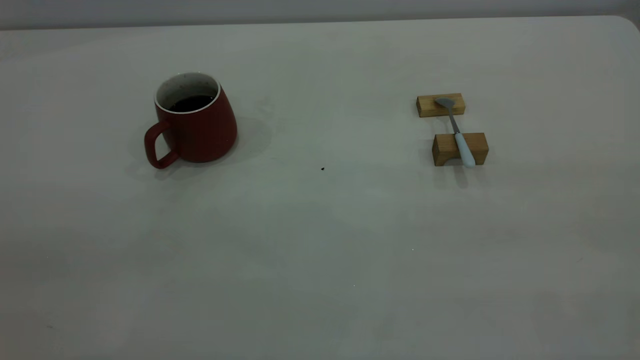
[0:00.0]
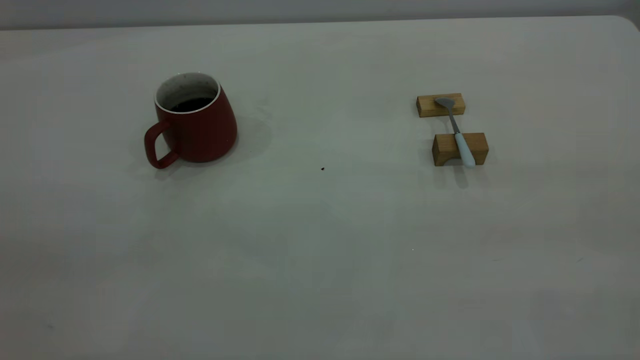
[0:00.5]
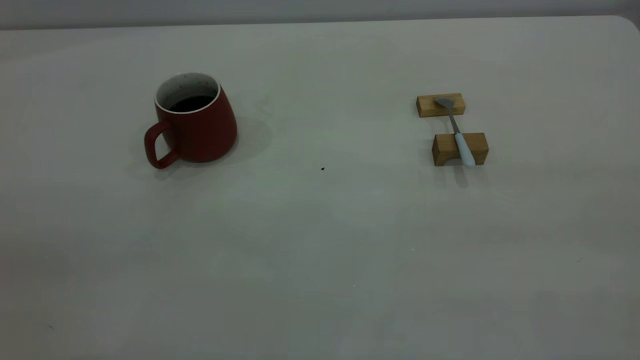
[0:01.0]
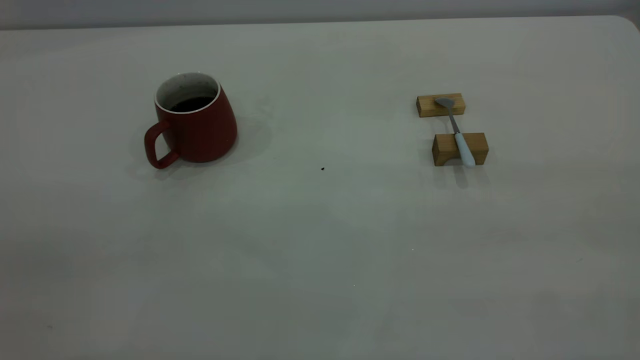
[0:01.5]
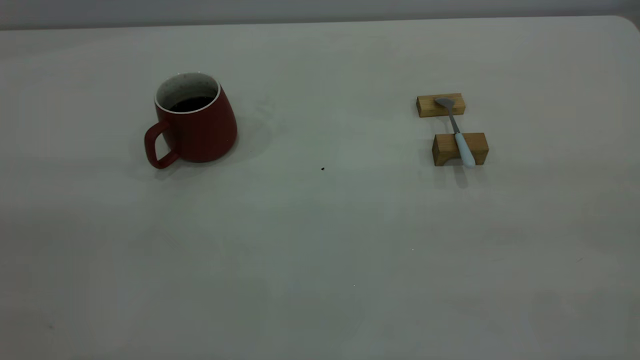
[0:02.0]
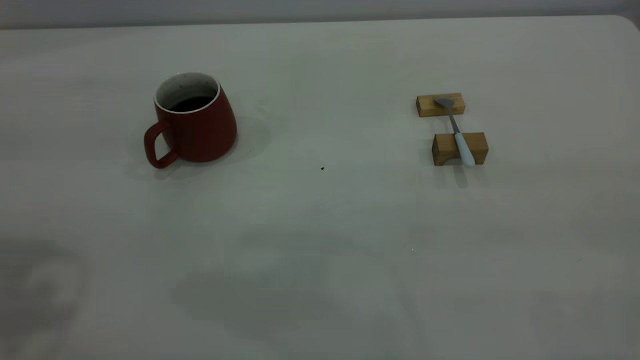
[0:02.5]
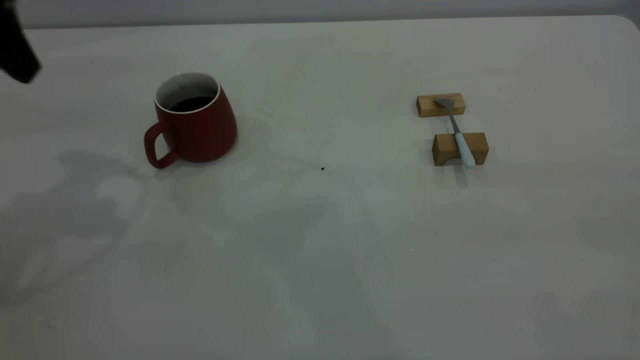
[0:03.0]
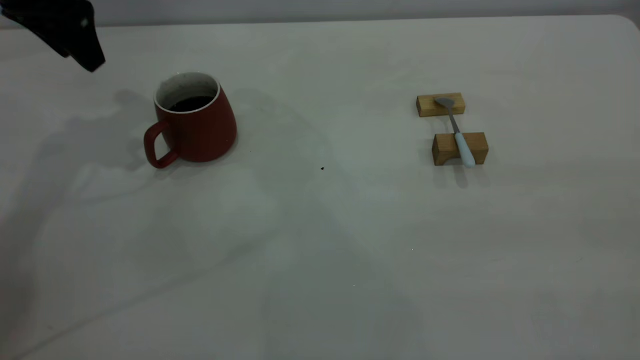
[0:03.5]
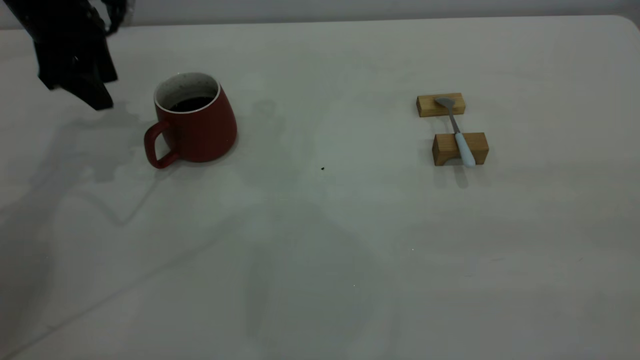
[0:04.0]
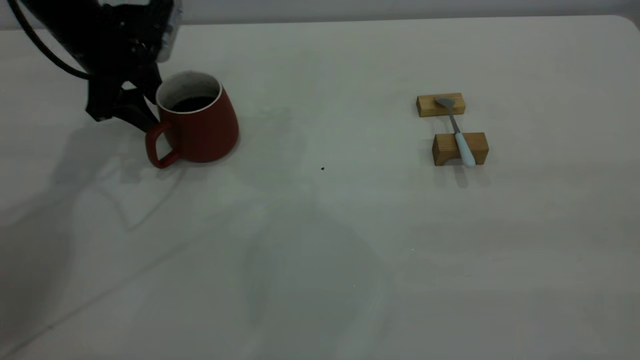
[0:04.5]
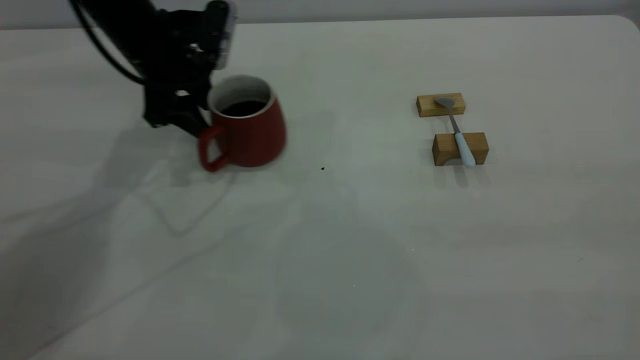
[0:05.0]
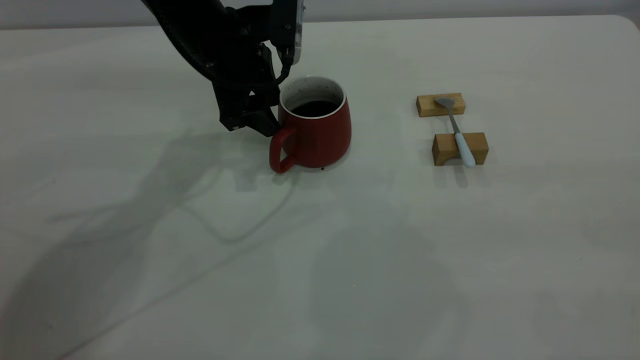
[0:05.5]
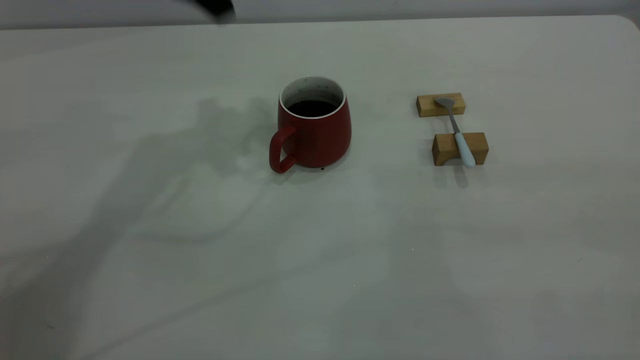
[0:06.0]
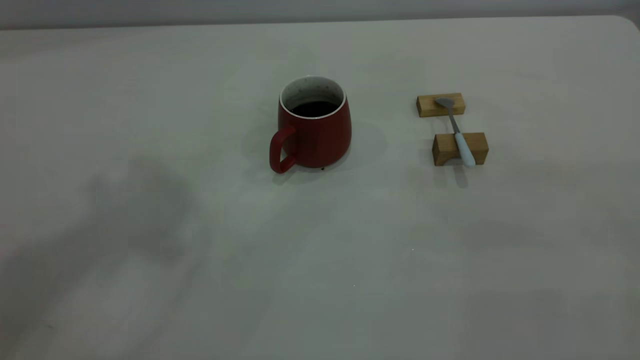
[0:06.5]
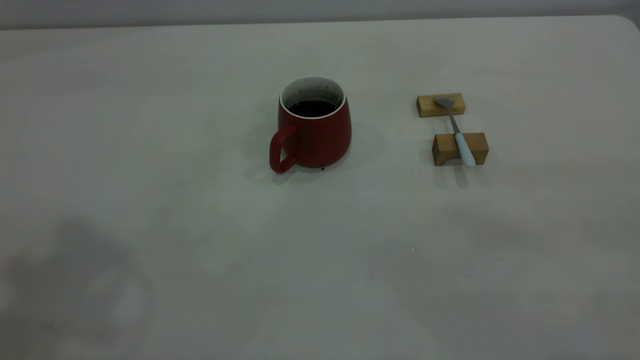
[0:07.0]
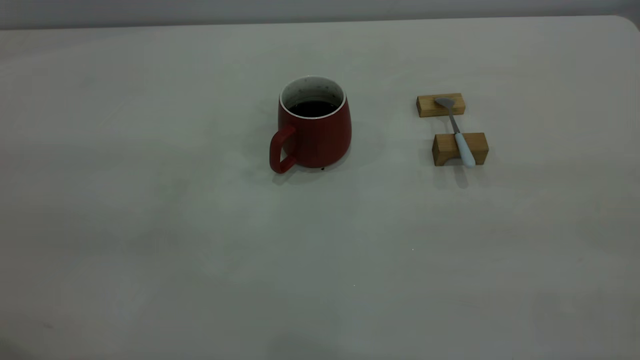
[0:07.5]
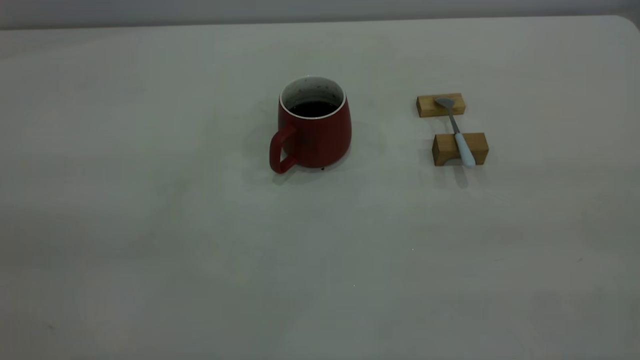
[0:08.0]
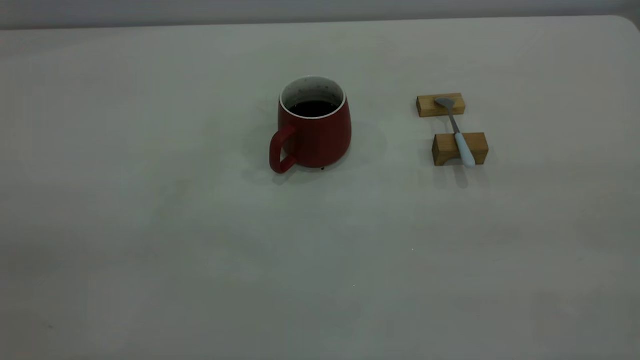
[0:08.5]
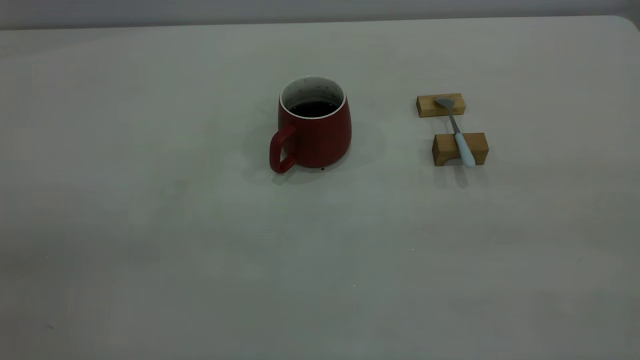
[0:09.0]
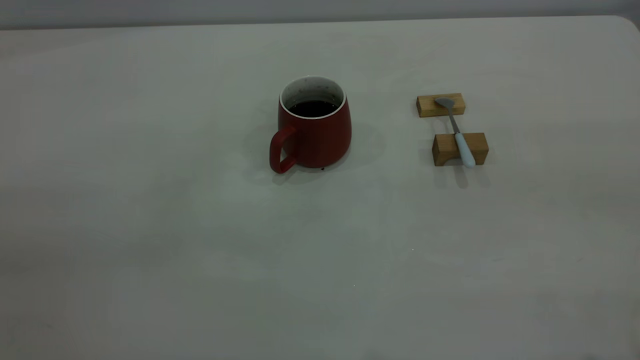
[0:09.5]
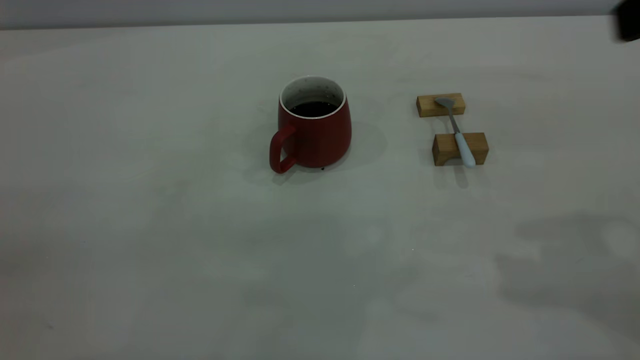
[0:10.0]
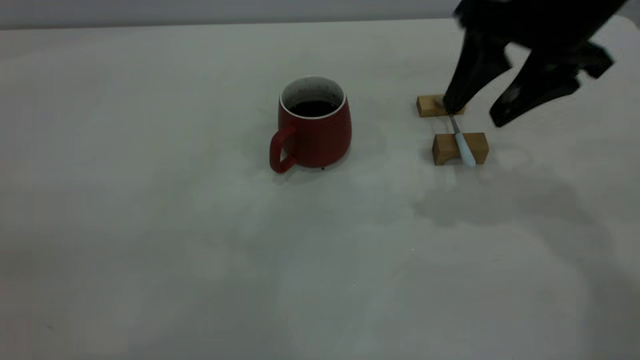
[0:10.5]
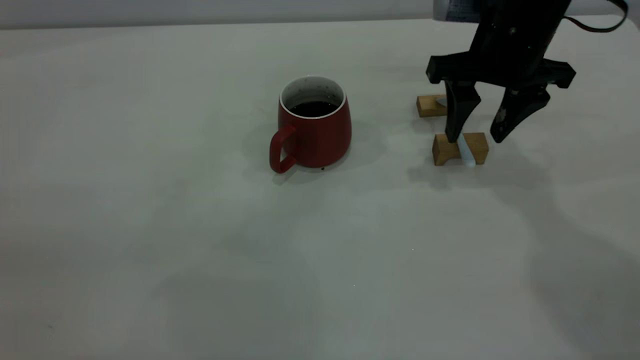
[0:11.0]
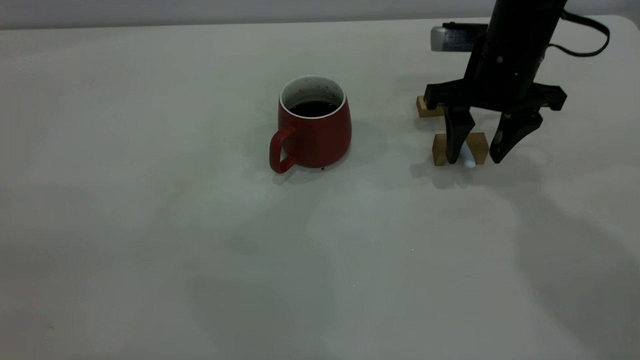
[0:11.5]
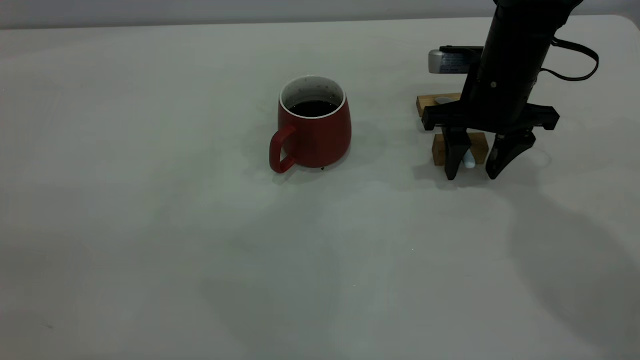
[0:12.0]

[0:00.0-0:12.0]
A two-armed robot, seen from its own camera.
Step, 0:00.0 to 0:05.5: Move the cup with coffee to the center of view.
0:02.0 to 0:04.0: The left gripper is displaced forward and downward by roughly 50 cm.
0:04.0 to 0:06.0: The left gripper goes some 20 cm upward and to the right.
0:10.0 to 0:12.0: The right gripper is displaced downward and forward by about 30 cm.

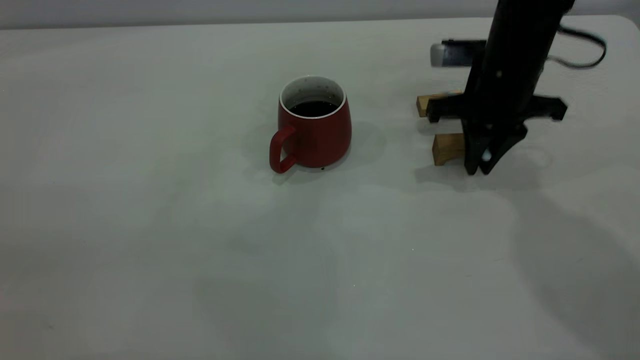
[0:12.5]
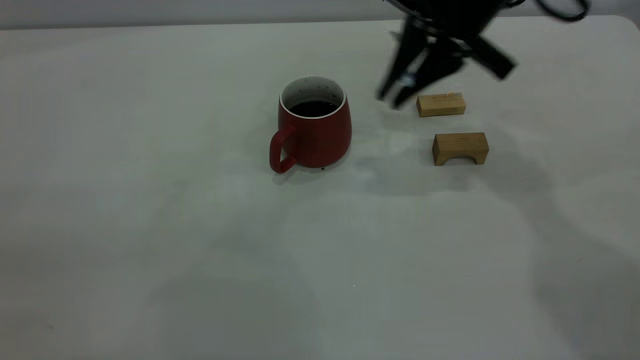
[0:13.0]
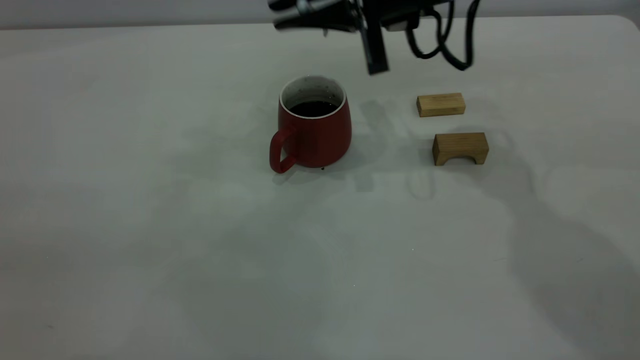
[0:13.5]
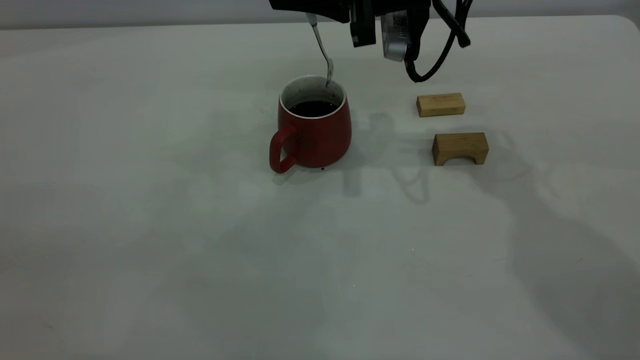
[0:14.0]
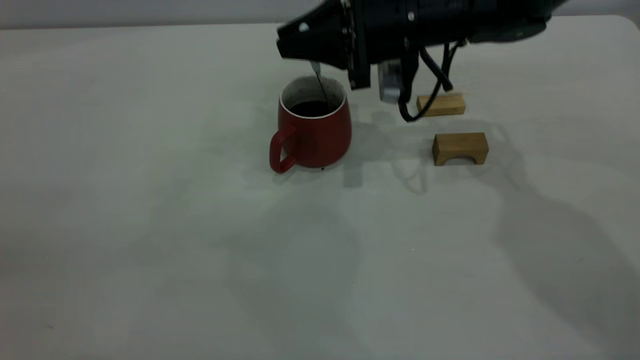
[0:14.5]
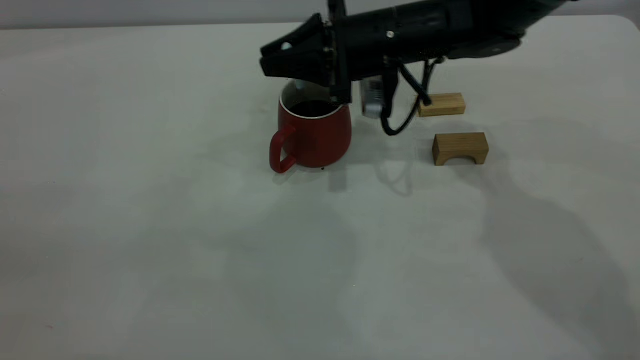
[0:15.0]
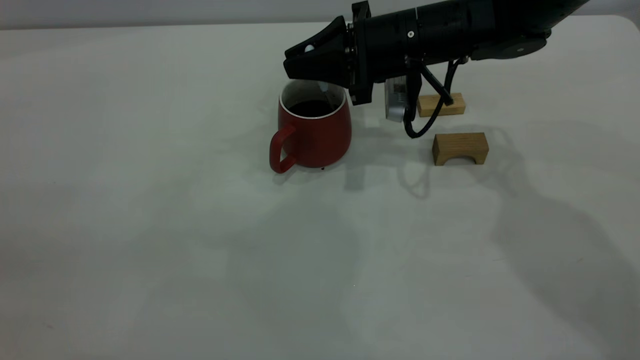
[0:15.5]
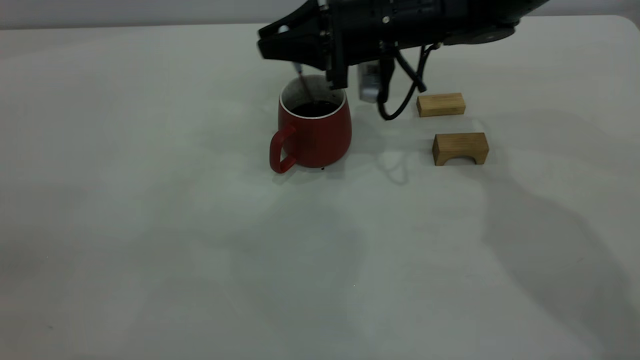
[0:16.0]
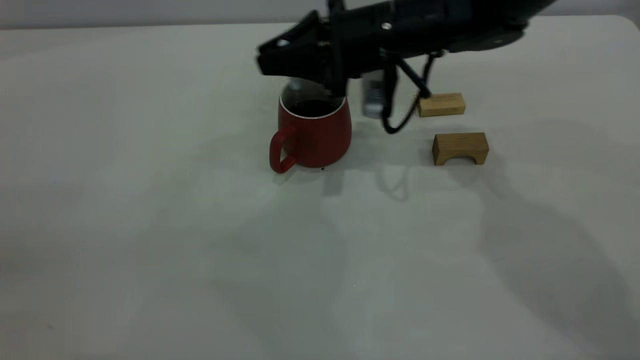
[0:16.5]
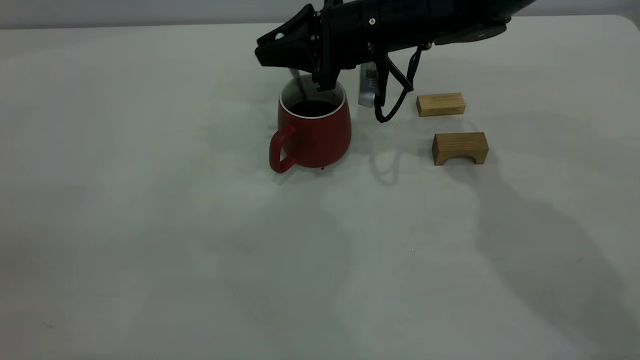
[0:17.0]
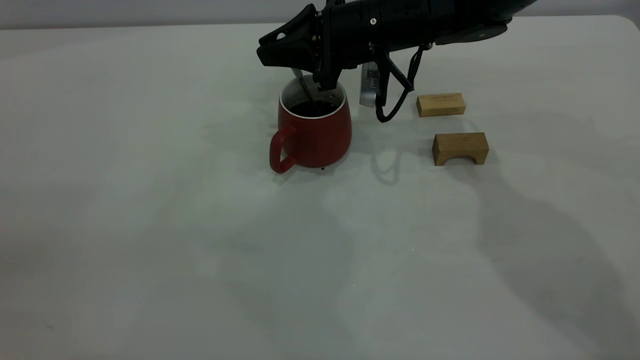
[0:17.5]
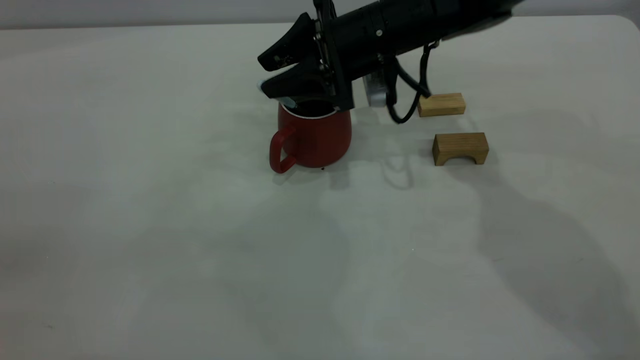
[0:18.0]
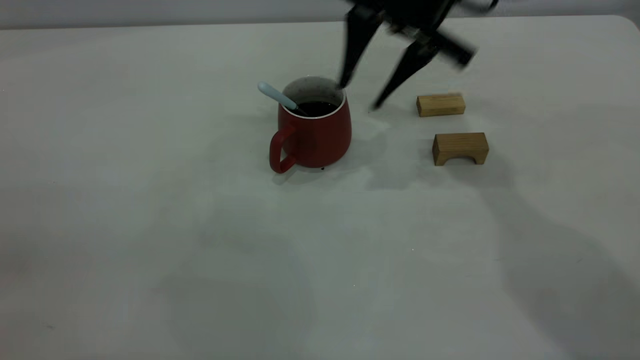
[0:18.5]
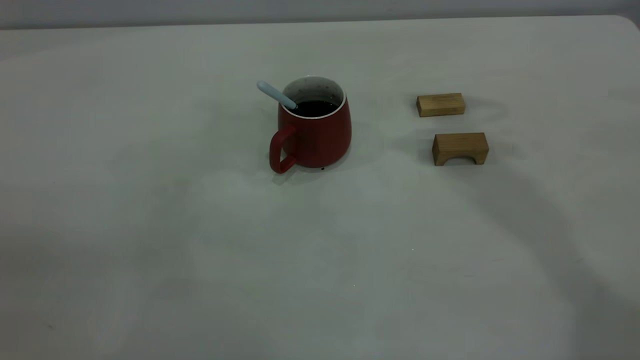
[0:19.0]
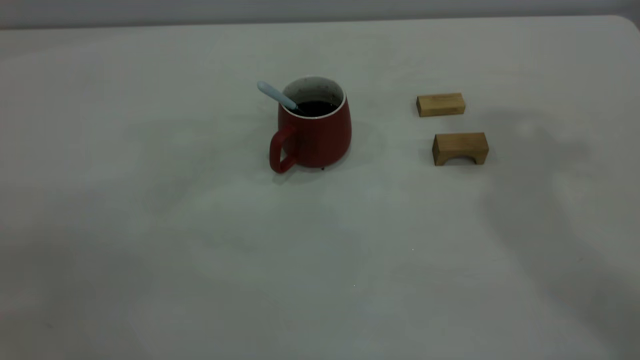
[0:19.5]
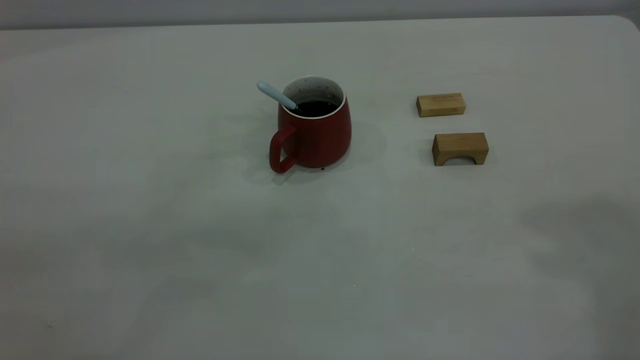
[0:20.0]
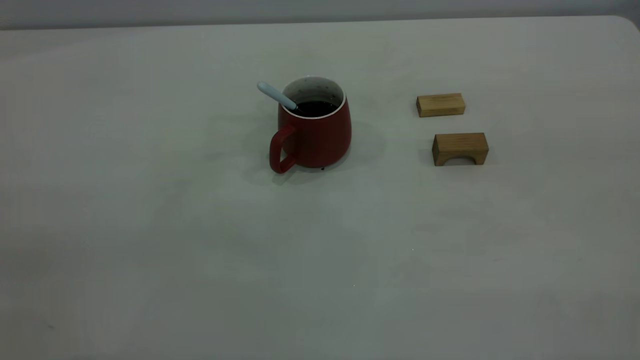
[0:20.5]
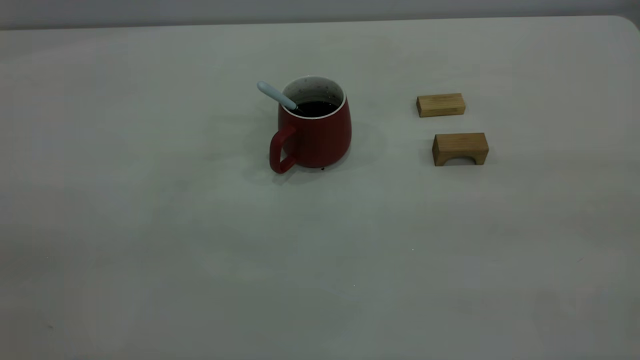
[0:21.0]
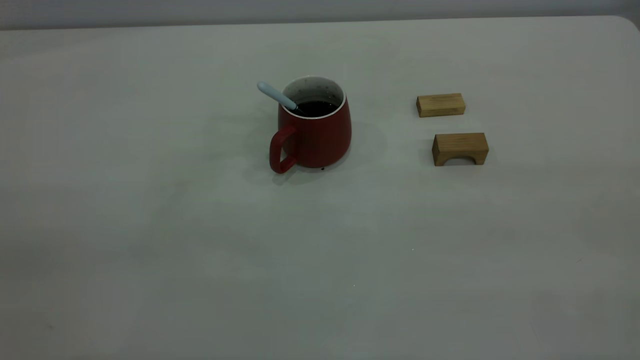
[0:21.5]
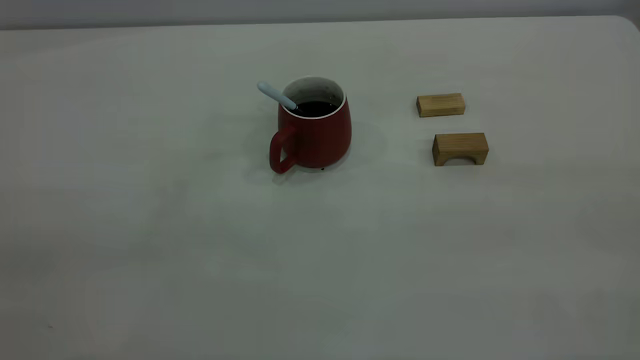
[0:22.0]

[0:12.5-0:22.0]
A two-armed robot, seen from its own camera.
Step, 0:13.0 to 0:18.0: Stir the coffee in the cup.
0:12.5 to 0:14.5: The right gripper heads to the left, covering roughly 10 cm.
0:14.5 to 0:16.5: The grippers stay close to where they were, moving slightly.
0:16.5 to 0:18.0: The right gripper opens.
0:18.0 to 0:20.0: The right gripper heads upward, backward and to the right, covering some 50 cm.
